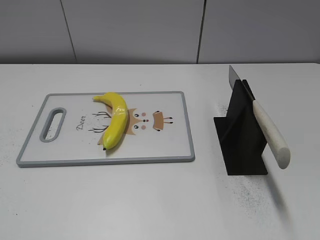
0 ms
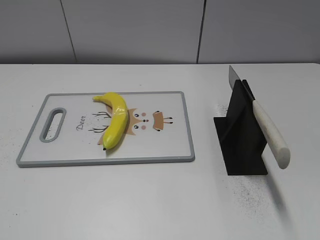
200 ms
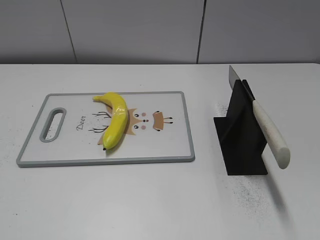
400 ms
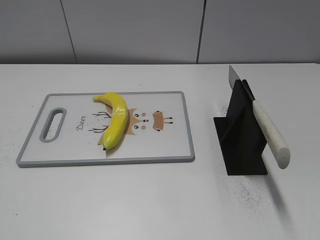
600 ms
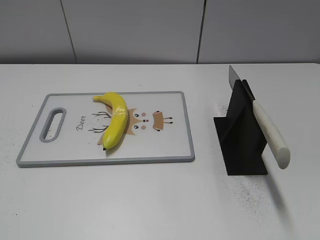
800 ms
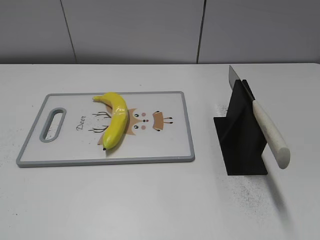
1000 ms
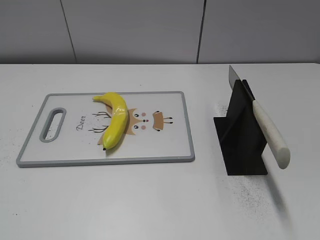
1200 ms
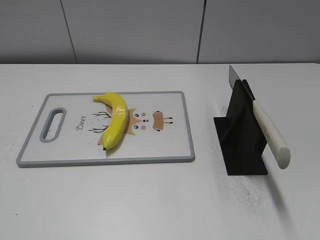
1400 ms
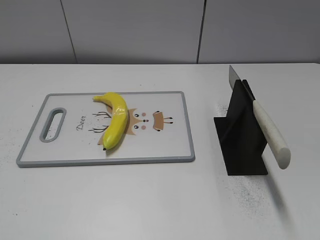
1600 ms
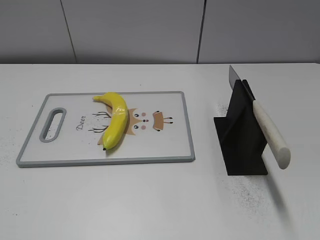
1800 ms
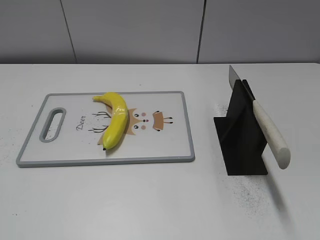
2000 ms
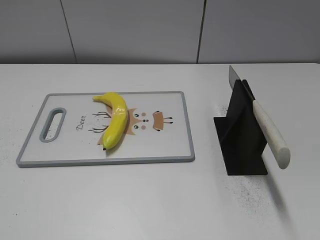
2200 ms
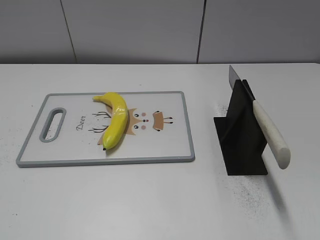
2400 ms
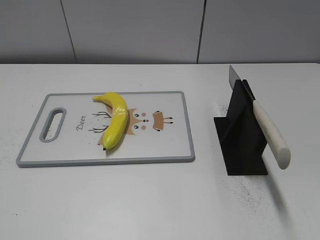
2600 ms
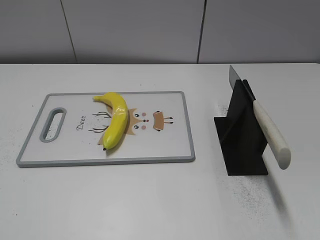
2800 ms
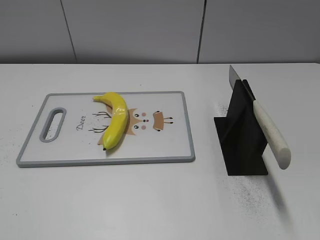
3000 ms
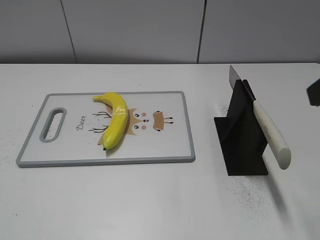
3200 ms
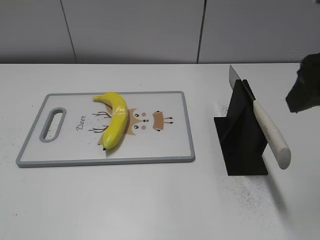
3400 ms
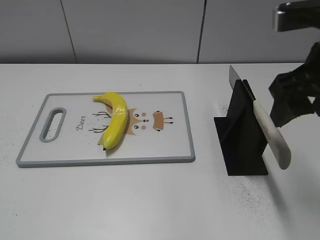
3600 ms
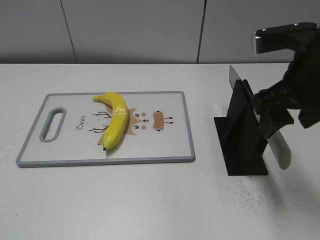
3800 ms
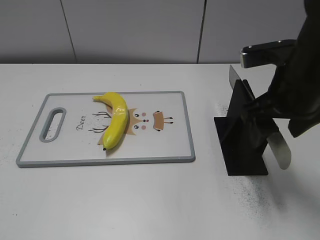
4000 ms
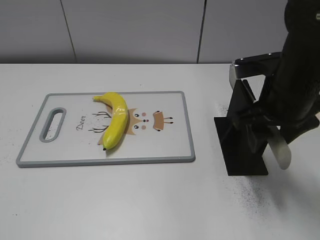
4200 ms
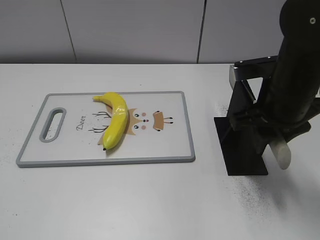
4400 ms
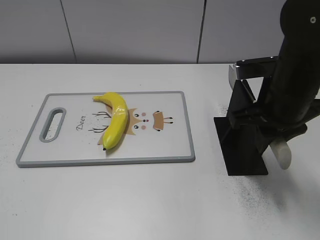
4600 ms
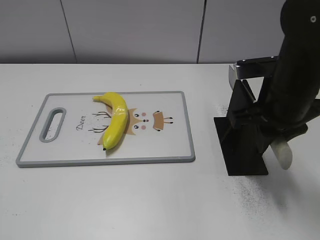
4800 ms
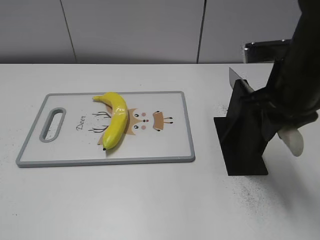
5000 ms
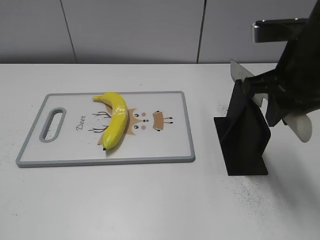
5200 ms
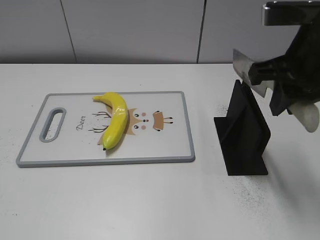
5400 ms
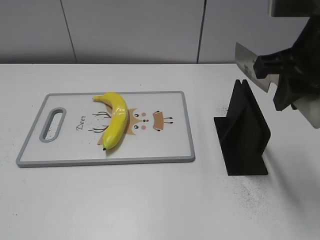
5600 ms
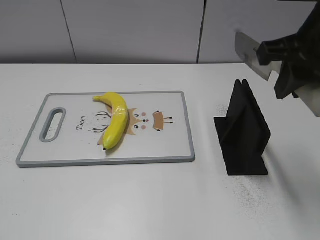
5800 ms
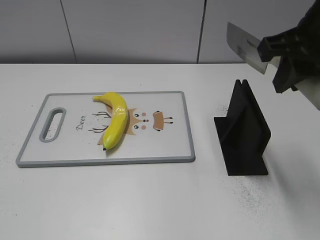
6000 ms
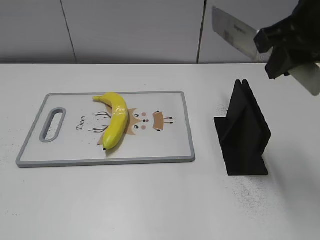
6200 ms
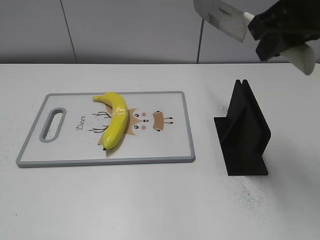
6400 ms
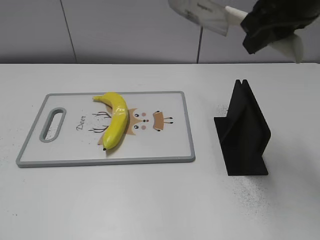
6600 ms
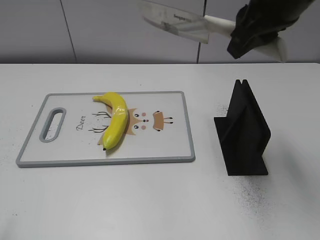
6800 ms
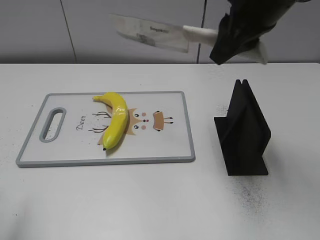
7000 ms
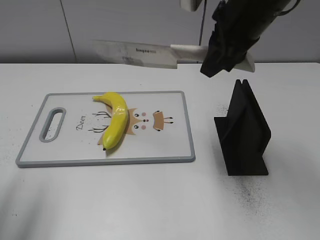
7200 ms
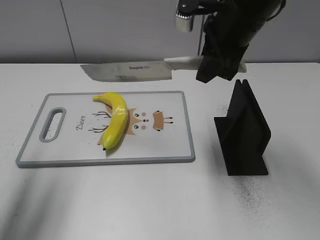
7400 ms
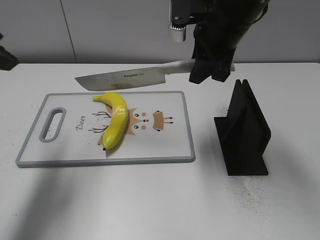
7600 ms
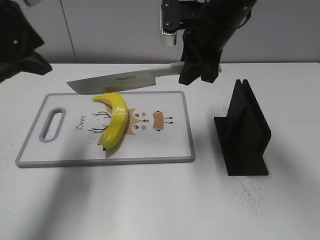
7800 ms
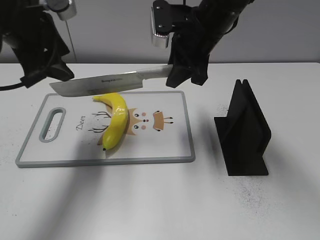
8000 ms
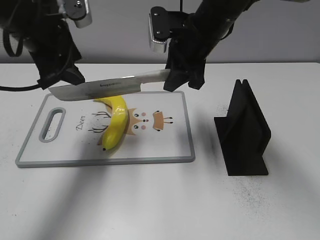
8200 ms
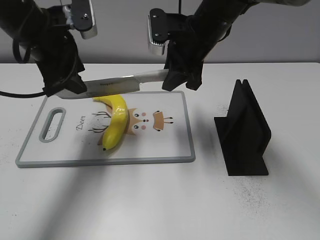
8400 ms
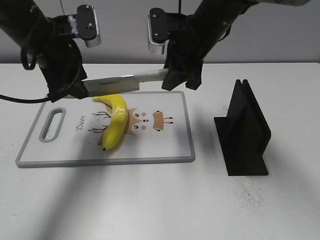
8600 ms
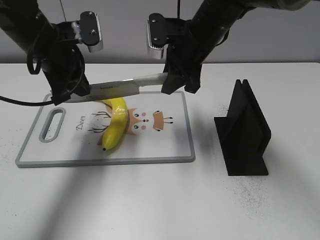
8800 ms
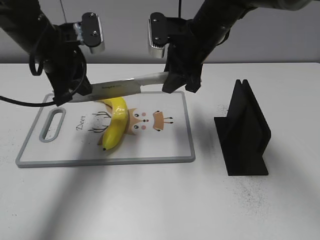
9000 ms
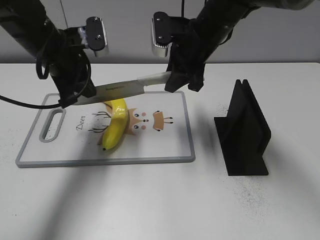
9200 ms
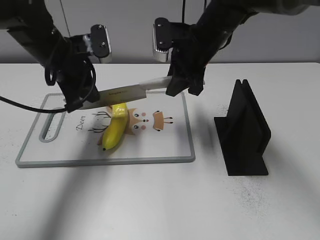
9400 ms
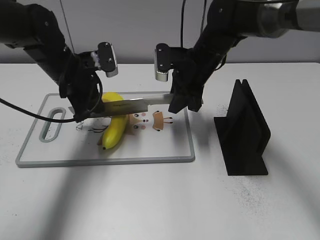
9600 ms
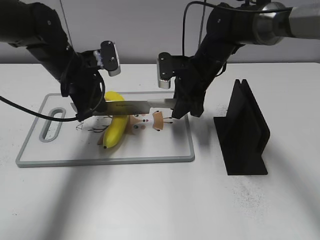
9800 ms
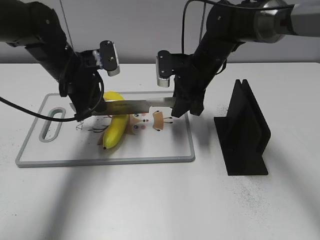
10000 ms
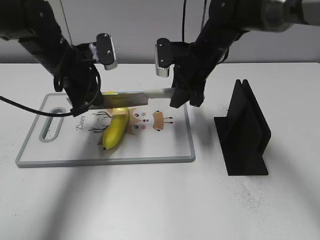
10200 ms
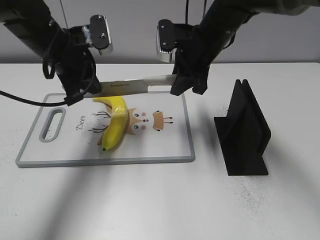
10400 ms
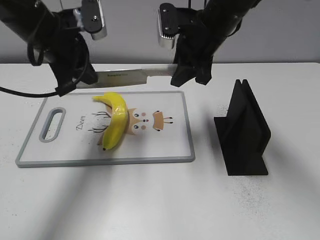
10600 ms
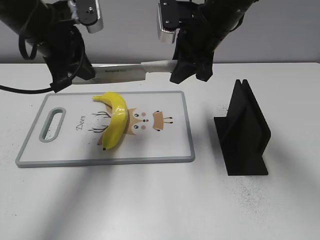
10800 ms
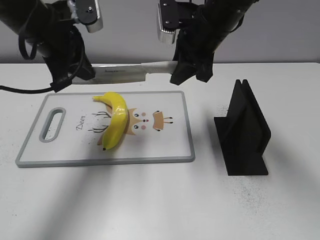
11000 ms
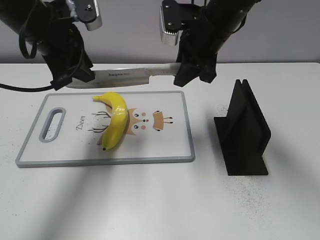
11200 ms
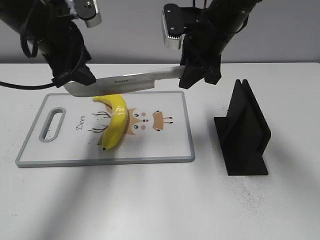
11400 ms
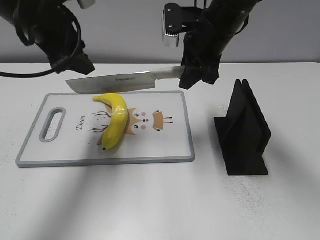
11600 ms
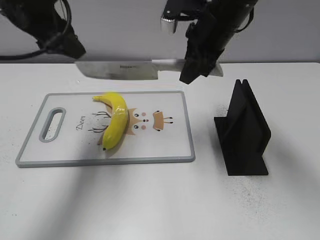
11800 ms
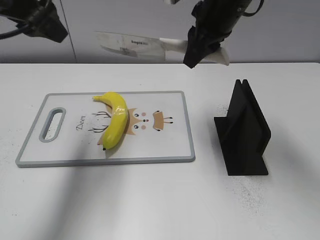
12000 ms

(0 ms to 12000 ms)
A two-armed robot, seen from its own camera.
Task of the whole recording: cut plastic banana.
Step, 0 ms - 5600 ms: Grab the knife handle with your right hand.
Step, 5800 ms - 11000 ms: Lift the knife with your right hand.
3000 ms - 4400 ms: The right gripper moves forward, downward and to the left, about 20 cm, and closes up.
4400 ms - 6000 ms: The right gripper is displaced upward by approximately 10 cm.
6000 ms - 7600 ms: The right gripper moves forward, to the left and downward, roughly 15 cm; the left gripper is displaced forward by approximately 25 cm.
7600 ms - 9000 ms: The left gripper is displaced forward, downward and to the right by about 15 cm, and closes its fingers, while the right gripper moves downward, about 5 cm.
9000 ms - 10400 ms: The right gripper goes downward and returns, about 10 cm each way.
10400 ms - 12000 ms: The right gripper heads upward, covering about 10 cm; the left gripper goes approximately 15 cm upward and backward, and opens its fingers.

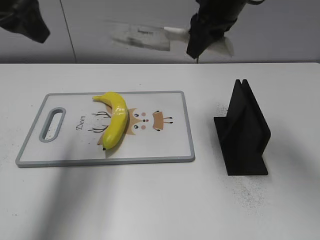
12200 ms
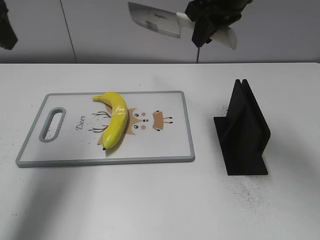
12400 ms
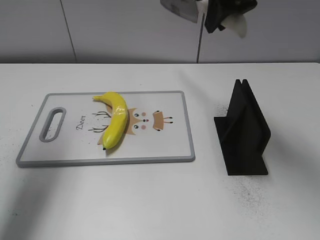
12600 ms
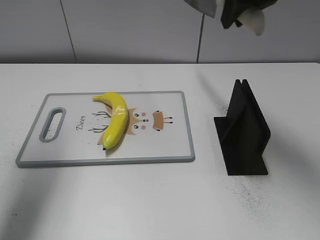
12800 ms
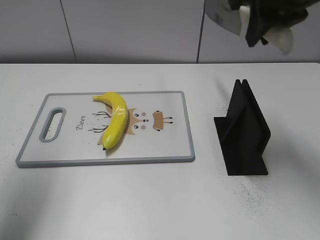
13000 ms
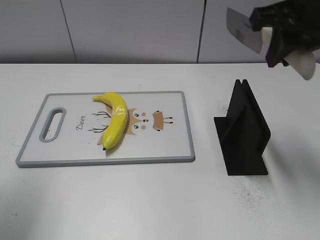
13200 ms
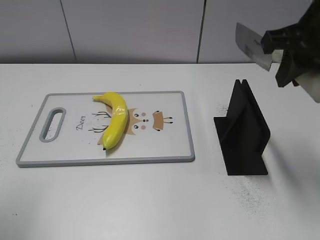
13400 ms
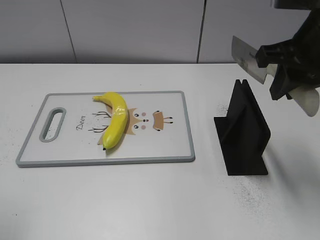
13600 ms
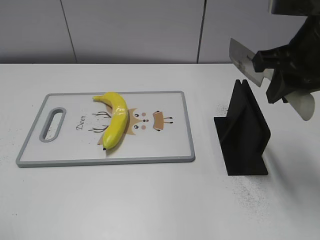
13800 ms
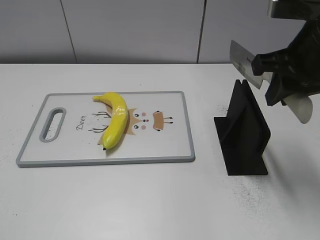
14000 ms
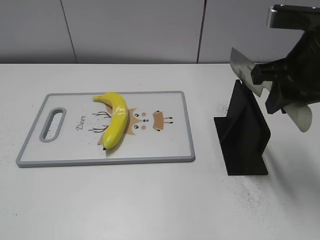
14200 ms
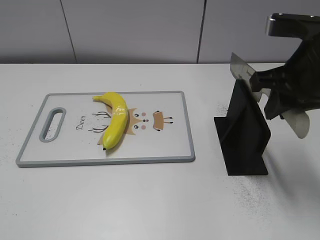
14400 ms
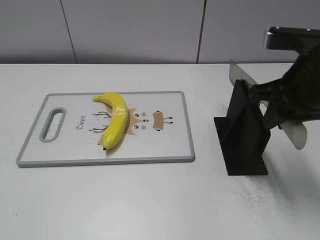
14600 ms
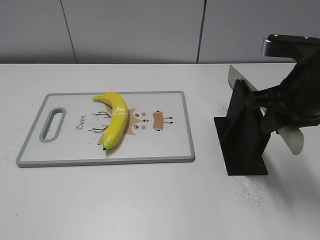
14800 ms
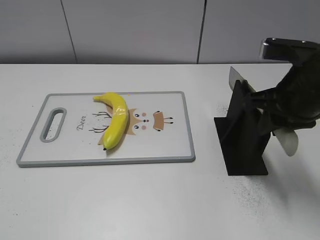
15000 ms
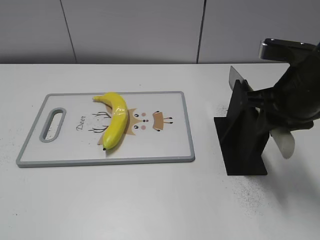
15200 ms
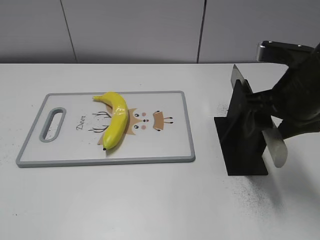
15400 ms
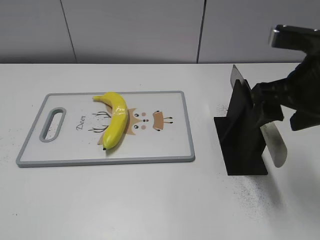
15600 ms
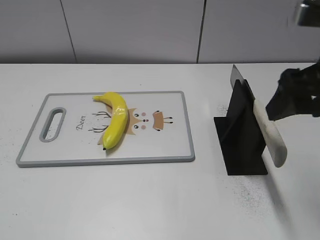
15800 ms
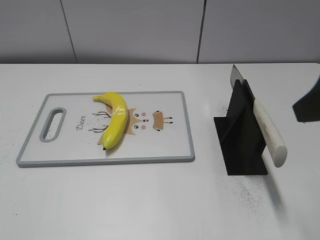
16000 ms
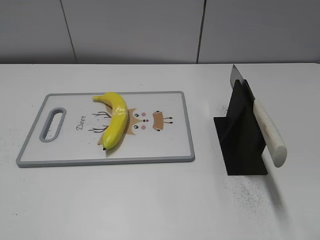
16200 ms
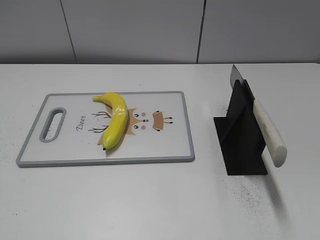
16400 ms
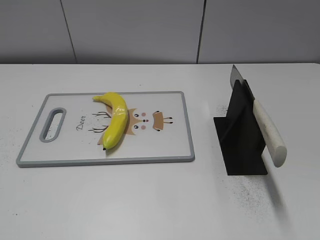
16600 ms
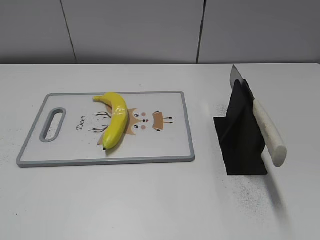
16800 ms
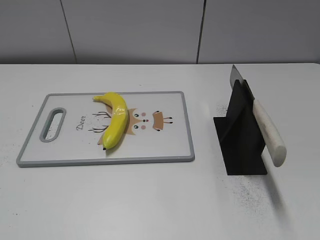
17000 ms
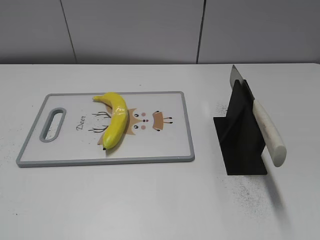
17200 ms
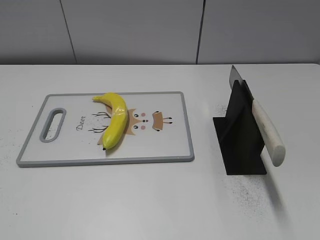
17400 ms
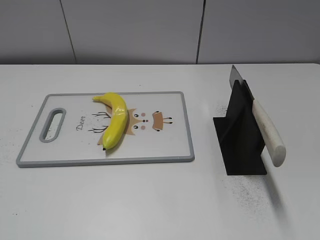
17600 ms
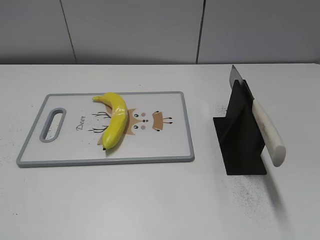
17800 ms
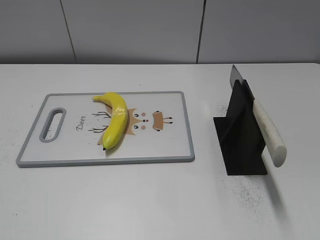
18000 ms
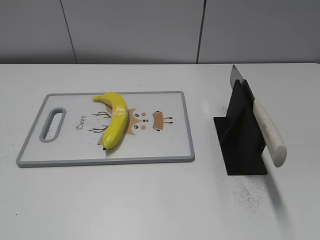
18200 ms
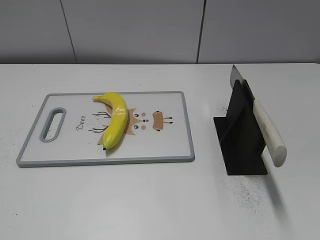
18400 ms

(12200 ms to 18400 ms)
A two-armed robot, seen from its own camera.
Task of the whole recording: cut plastic banana.
Step, 12400 ms - 14000 ms: Lift the knife with your right hand.
Step, 14400 ms - 18400 ms: Place the knife on the storage rack with your right hand.
12200 ms - 13800 ms: The left gripper goes some 25 cm backward and to the left. The right gripper heads backward and to the right, covering some 15 cm.
13800 ms - 15400 ms: The right gripper is displaced downward by about 5 cm, and opens.
15400 ms - 16800 ms: The right gripper is displaced backward and to the right by approximately 25 cm.
